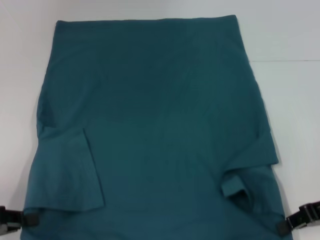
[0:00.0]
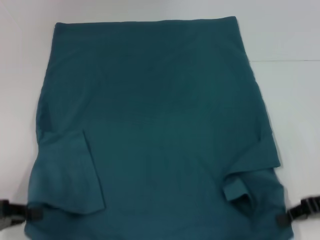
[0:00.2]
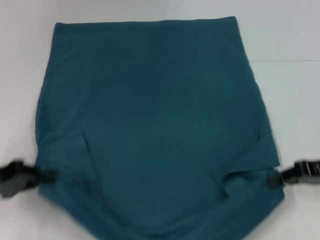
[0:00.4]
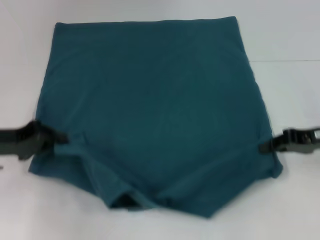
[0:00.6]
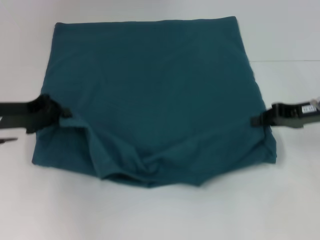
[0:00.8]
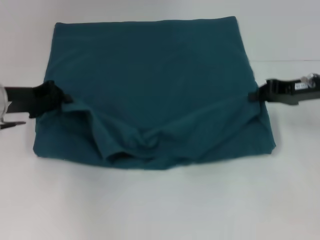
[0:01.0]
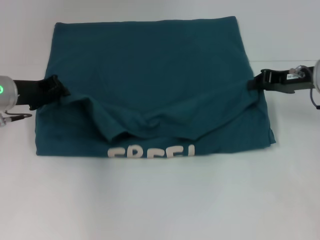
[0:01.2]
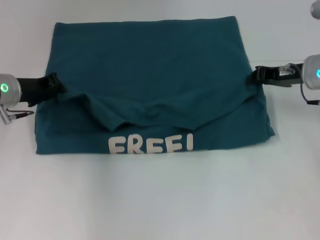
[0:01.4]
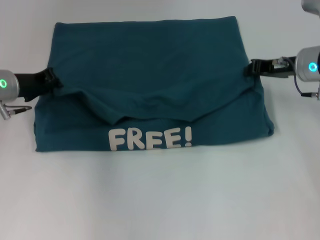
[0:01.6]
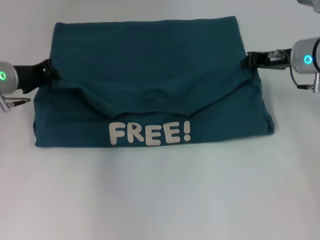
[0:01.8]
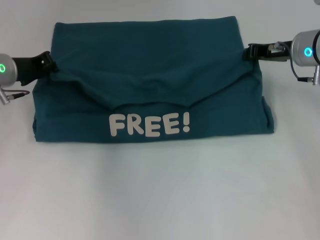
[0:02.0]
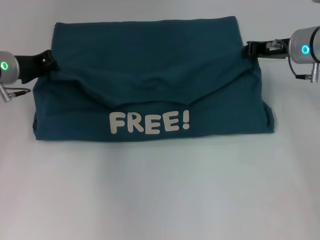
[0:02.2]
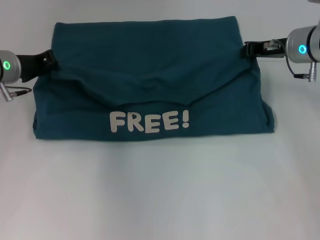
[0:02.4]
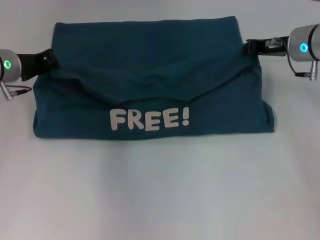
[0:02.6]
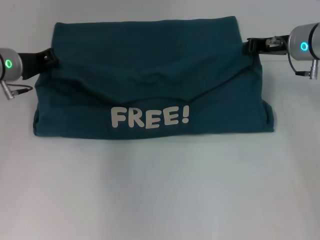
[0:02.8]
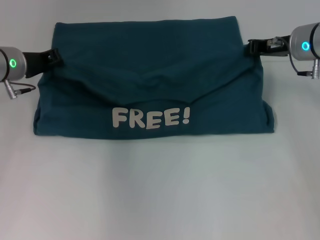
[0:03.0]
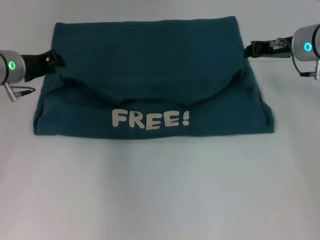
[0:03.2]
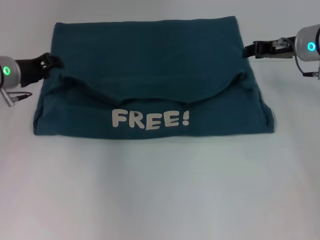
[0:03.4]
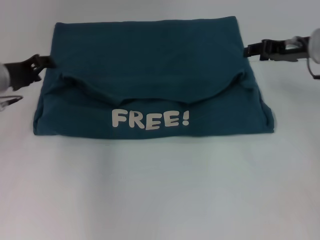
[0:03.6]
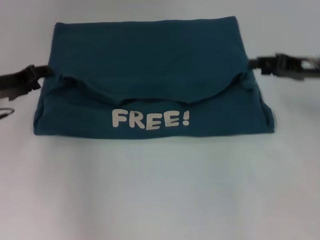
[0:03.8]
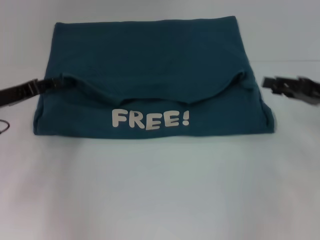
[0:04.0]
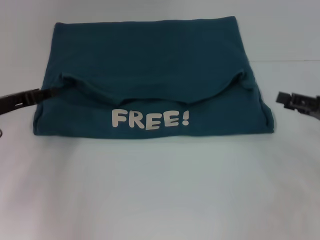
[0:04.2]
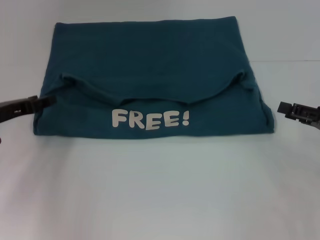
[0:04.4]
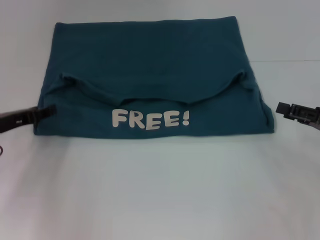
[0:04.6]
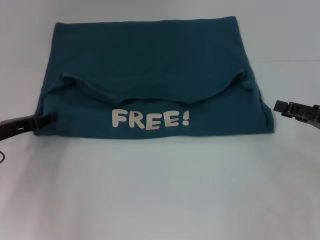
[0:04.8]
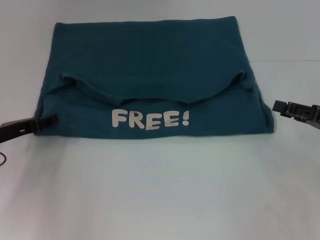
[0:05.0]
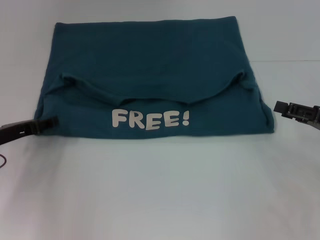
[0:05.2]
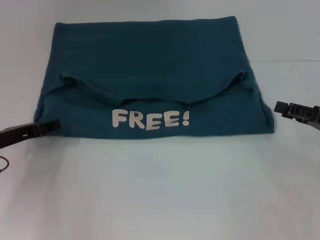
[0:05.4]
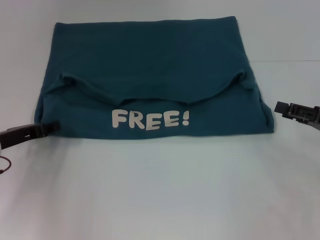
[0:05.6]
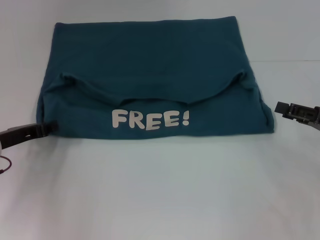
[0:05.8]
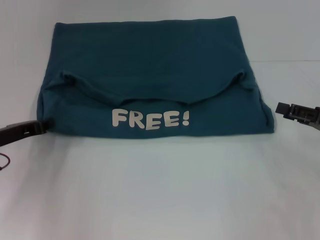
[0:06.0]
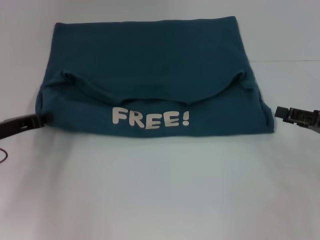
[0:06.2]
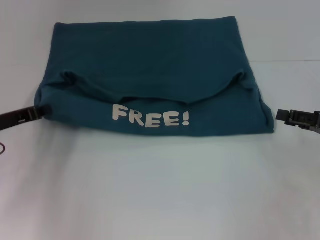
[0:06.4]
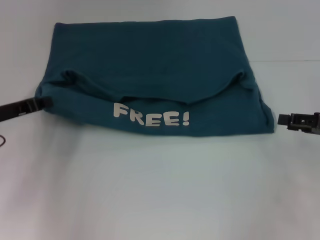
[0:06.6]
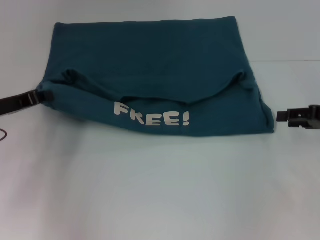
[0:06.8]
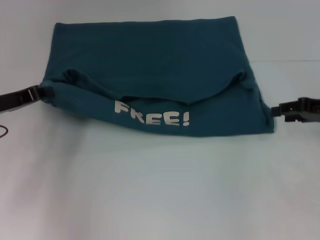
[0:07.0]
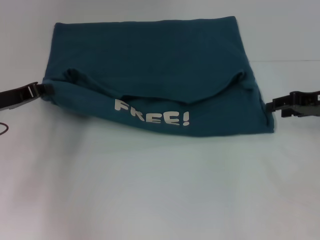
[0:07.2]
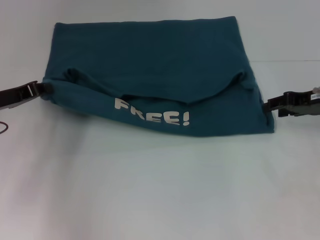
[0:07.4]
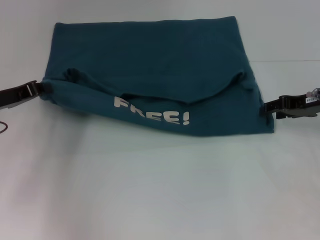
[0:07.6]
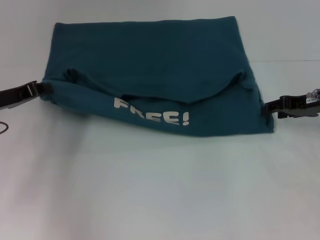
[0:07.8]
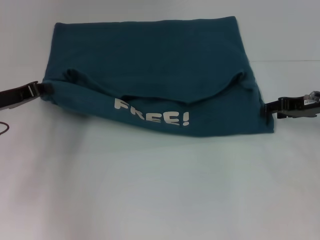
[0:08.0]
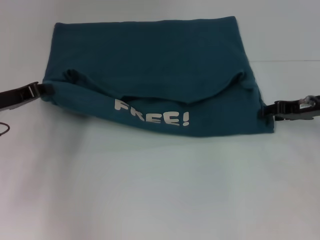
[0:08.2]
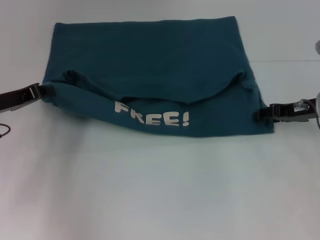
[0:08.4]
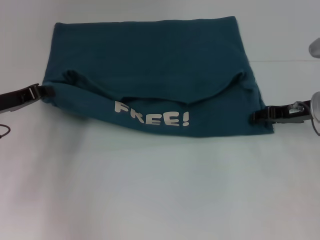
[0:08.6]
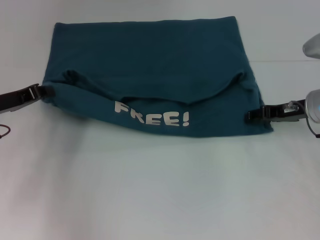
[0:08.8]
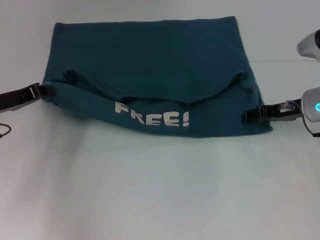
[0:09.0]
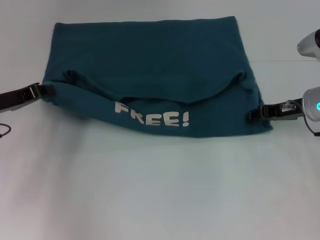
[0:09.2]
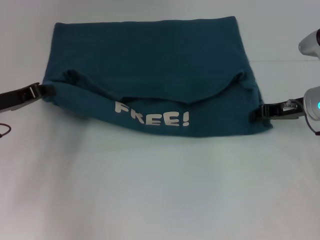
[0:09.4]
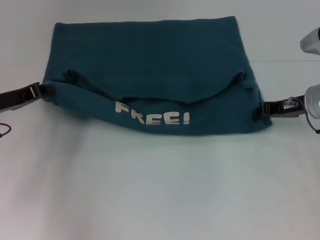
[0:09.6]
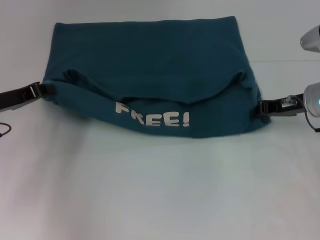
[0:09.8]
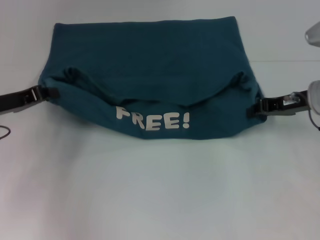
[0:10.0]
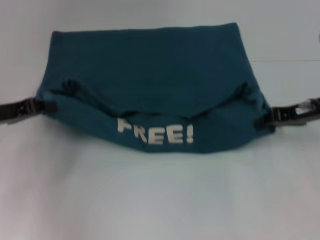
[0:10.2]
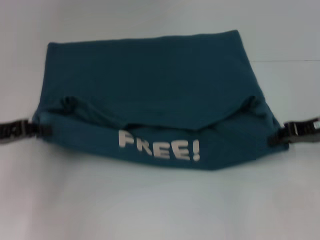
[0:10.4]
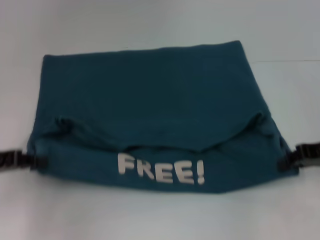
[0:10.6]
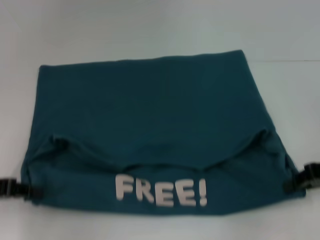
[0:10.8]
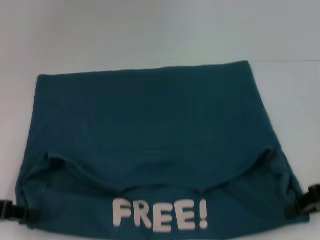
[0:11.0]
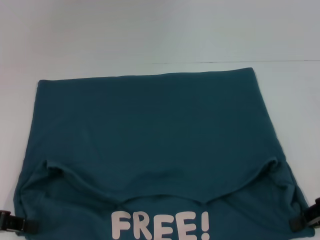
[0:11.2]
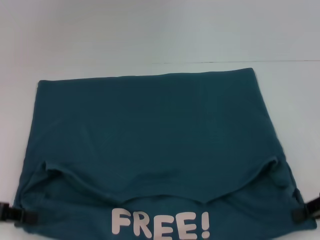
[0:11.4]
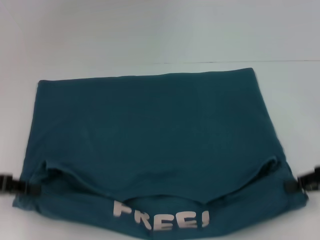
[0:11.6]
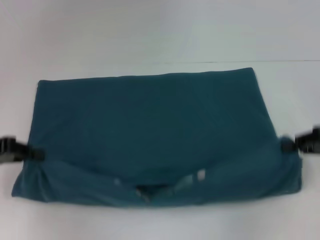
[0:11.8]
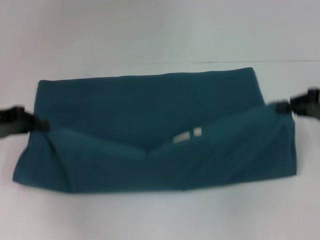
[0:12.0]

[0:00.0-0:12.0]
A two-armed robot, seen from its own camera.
Step, 0:00.0 to 0:03.2: Fold the clothes to the left.
Step, 0:00.0 to 0:03.2: Fold the clothes to the right.
Step, 0:03.4 to 0:10.8: Pull the clothes with your left hand.
Step, 0:03.4 to 0:10.8: Pull the clothes with your right hand.
0:00.0 to 0:01.6: The left gripper heads forward, covering some 20 cm; the right gripper is displaced forward and to the left by approximately 15 cm.
0:01.6 to 0:03.0: The grippers move only a little.
0:03.0 to 0:04.4: The right gripper goes some 20 cm backward, to the right and downward, and opens its fingers; the left gripper travels backward and to the left by approximately 10 cm, and opens.
0:04.4 to 0:06.0: There are only small adjustments of the grippers.
0:06.0 to 0:07.6: The left gripper moves roughly 5 cm; the right gripper heads forward, covering approximately 10 cm.
0:07.6 to 0:09.0: The grippers move only a little.
0:09.0 to 0:10.4: The right gripper shifts by about 5 cm, and closes its fingers; the left gripper changes place by approximately 5 cm.
0:10.4 to 0:12.0: The right gripper travels backward and back again, approximately 10 cm each way, while the left gripper moves roughly 10 cm backward and comes back.

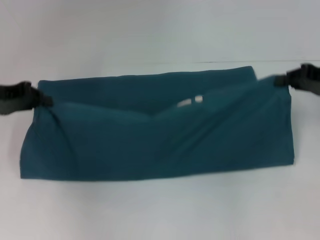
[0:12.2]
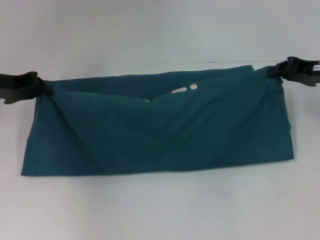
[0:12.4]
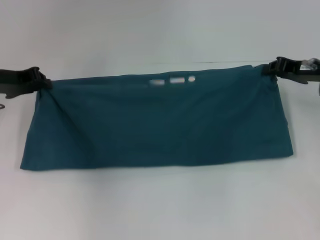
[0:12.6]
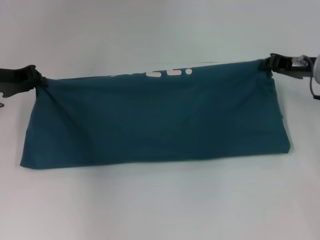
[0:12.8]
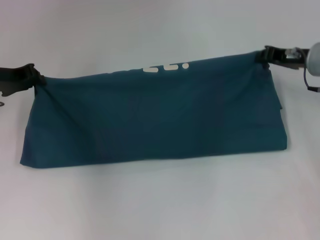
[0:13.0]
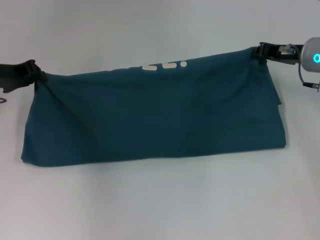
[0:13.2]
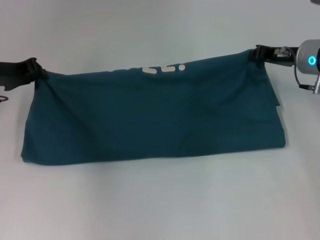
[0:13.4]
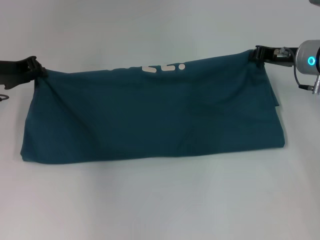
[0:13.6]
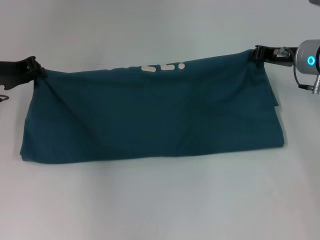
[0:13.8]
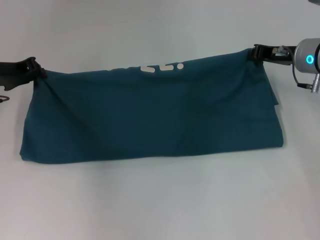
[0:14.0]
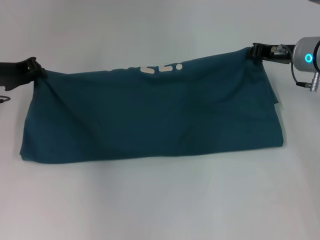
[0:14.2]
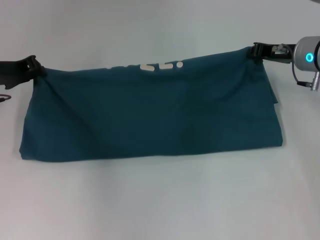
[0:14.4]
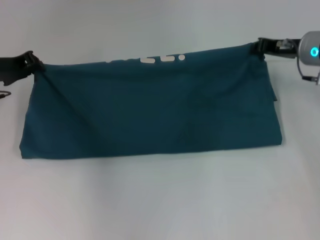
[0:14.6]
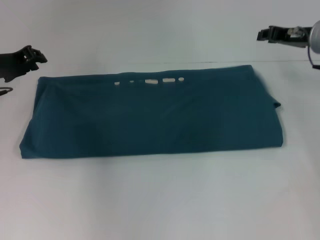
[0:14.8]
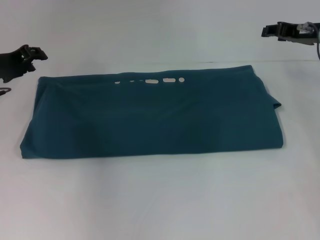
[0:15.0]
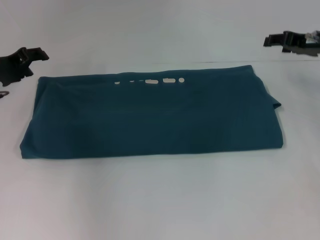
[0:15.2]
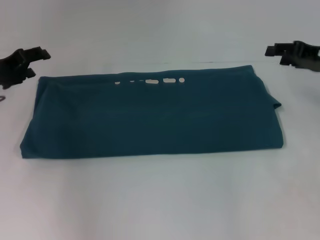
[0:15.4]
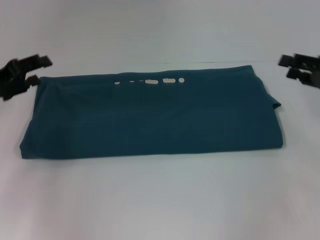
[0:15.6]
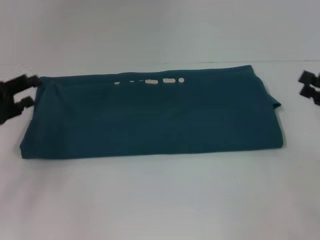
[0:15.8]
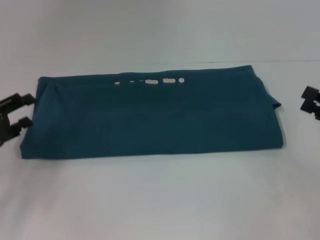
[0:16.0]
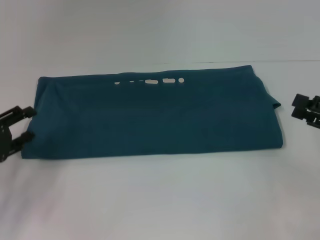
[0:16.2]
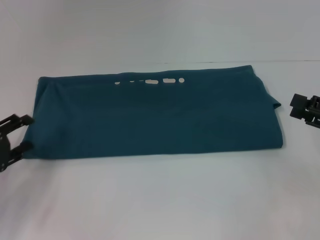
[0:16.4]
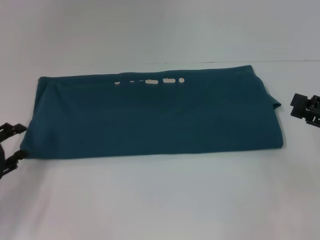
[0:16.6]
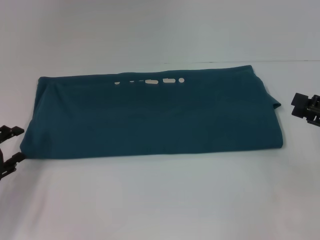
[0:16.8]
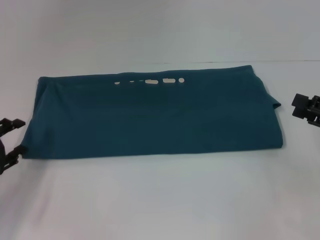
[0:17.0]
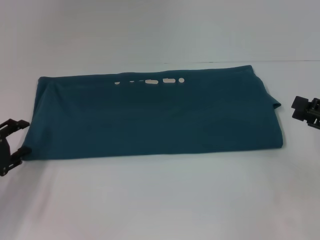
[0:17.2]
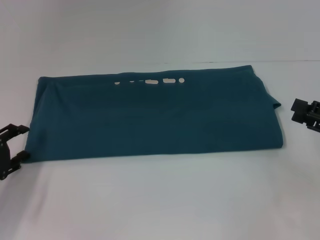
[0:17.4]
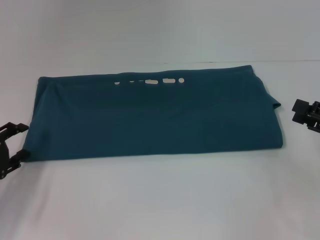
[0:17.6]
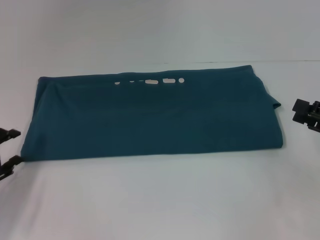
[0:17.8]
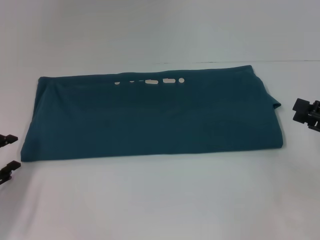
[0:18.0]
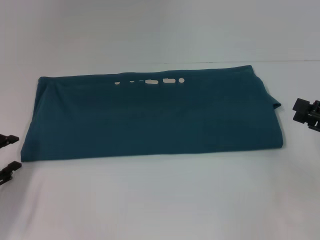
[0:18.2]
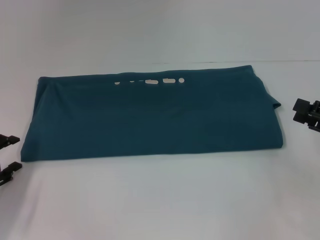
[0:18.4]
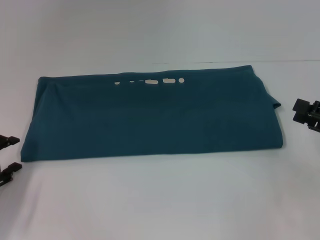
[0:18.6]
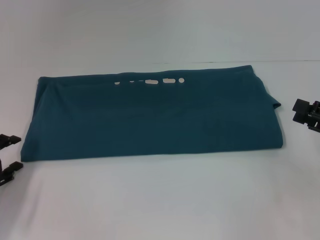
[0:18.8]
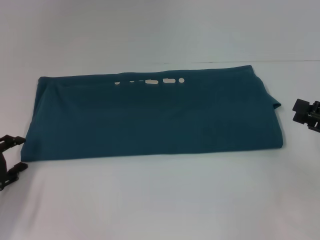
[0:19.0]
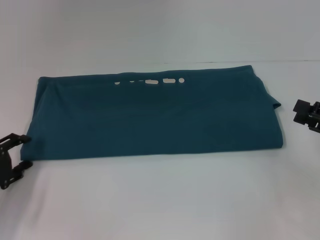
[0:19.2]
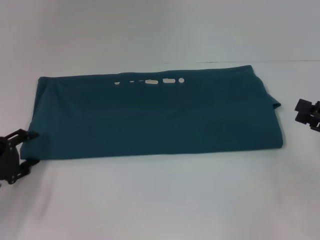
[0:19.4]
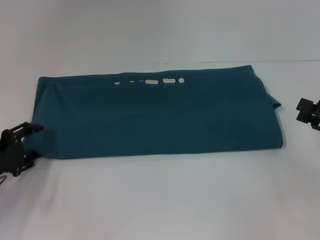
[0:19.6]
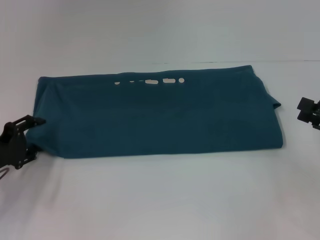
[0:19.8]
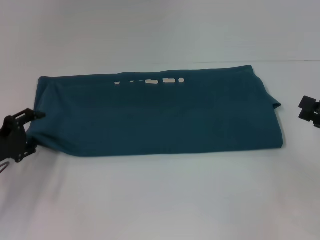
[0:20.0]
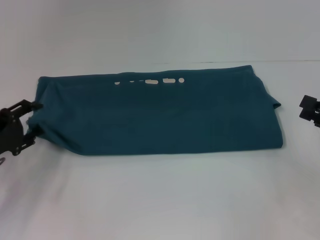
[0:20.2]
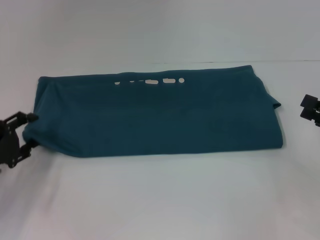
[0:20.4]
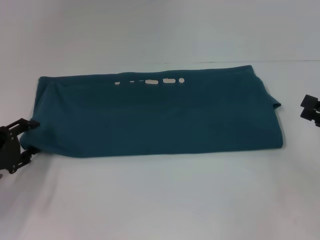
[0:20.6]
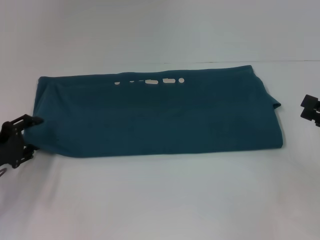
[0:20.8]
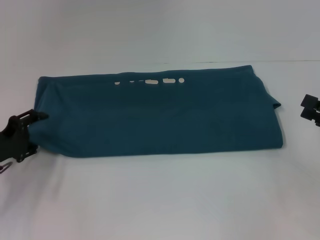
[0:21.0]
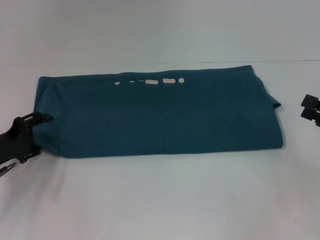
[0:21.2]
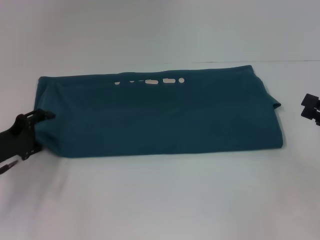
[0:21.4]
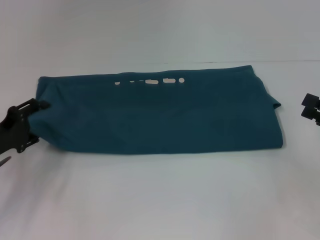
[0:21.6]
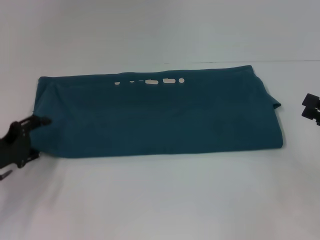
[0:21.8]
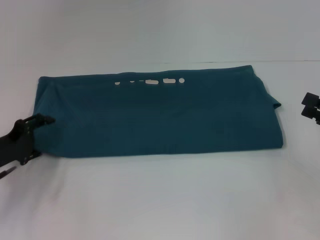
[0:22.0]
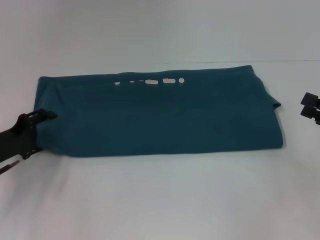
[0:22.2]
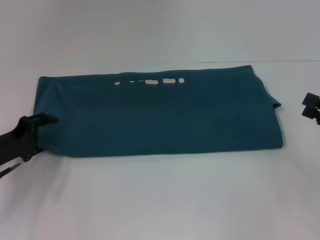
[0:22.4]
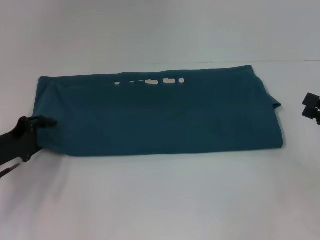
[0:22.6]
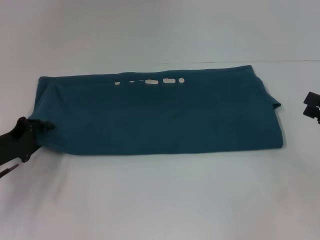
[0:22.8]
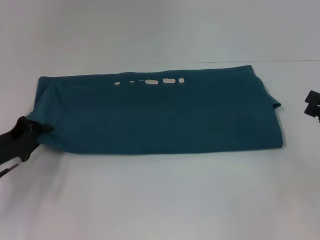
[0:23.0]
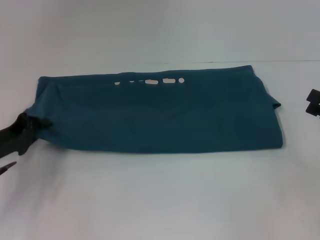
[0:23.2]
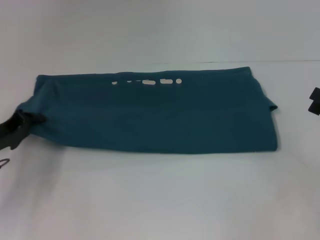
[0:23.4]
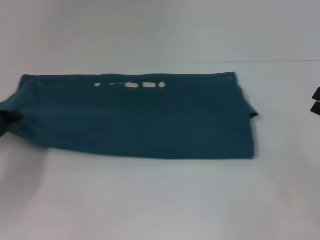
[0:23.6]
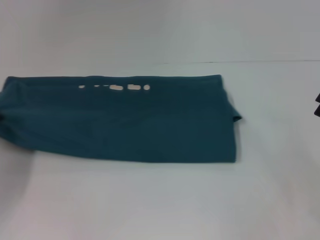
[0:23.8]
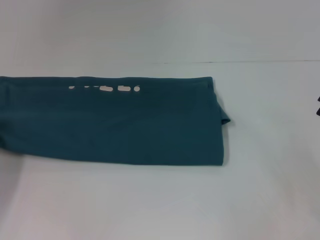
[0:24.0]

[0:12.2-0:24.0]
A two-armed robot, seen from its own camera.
Step, 0:12.2 to 0:14.6: Fold the clothes to the right.
0:12.2 to 0:13.6: The right gripper travels to the left and forward by approximately 10 cm, while the left gripper changes place by approximately 5 cm.
0:13.6 to 0:15.2: The left gripper opens; the right gripper shifts by approximately 5 cm, and opens its fingers.
0:15.2 to 0:16.6: The right gripper moves backward, about 15 cm. Meanwhile the left gripper travels backward and downward by some 20 cm.
0:16.6 to 0:21.0: The grippers make only small movements.
0:21.0 to 0:22.6: There are only small adjustments of the grippers.
0:22.6 to 0:24.0: The left gripper goes some 5 cm to the left, and closes.
